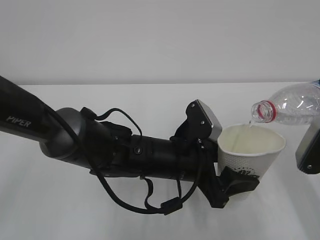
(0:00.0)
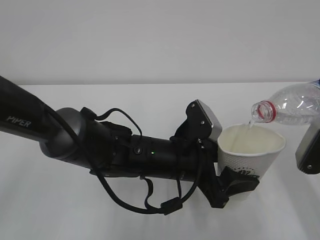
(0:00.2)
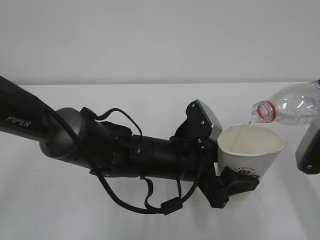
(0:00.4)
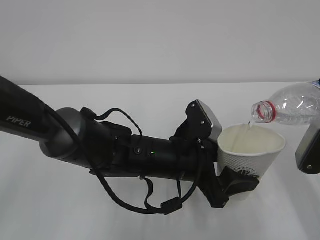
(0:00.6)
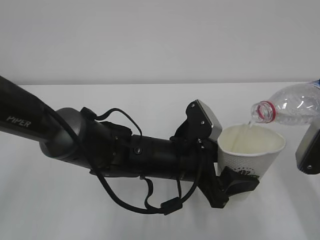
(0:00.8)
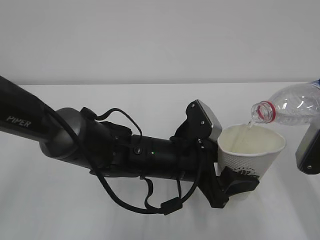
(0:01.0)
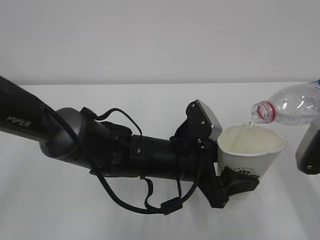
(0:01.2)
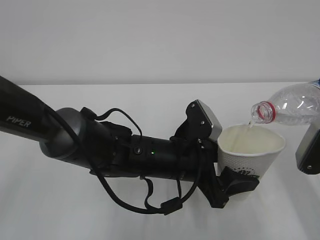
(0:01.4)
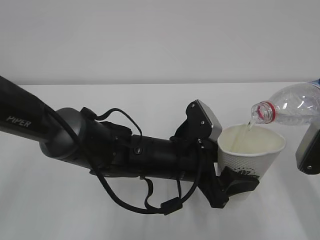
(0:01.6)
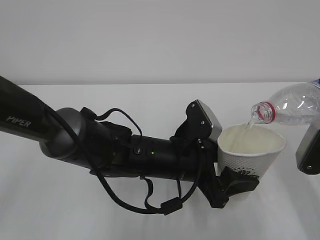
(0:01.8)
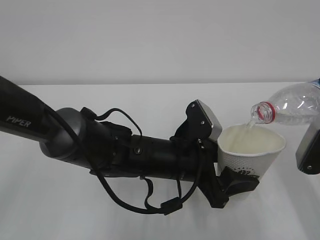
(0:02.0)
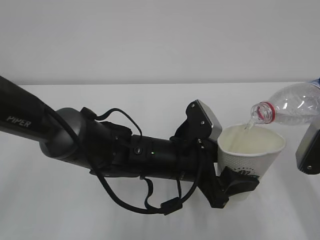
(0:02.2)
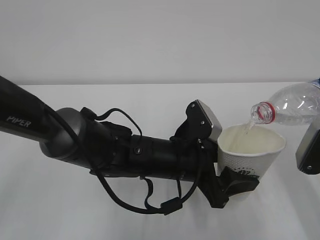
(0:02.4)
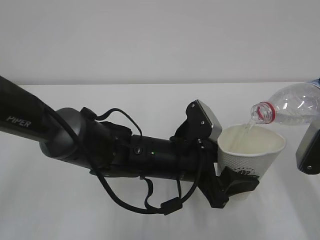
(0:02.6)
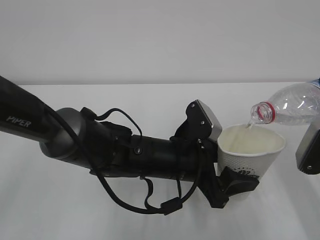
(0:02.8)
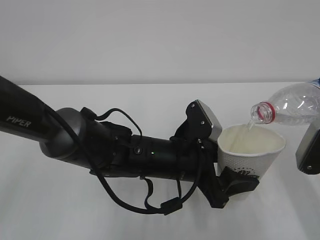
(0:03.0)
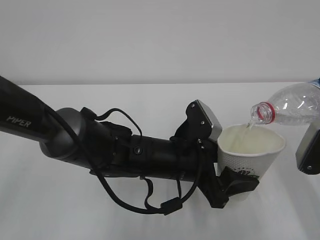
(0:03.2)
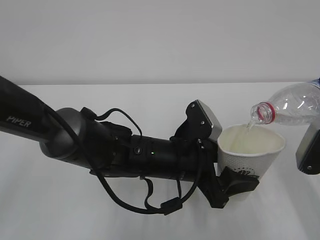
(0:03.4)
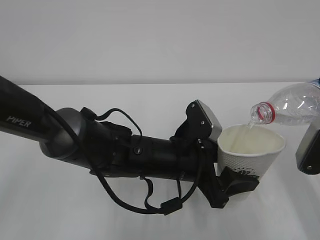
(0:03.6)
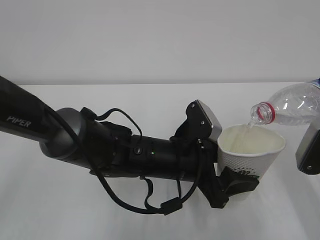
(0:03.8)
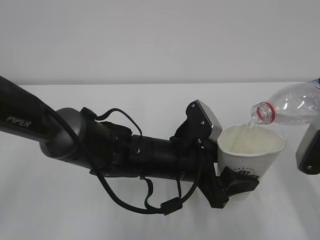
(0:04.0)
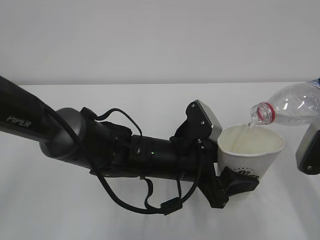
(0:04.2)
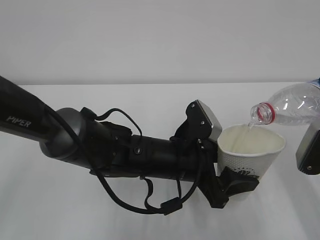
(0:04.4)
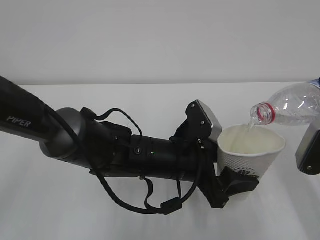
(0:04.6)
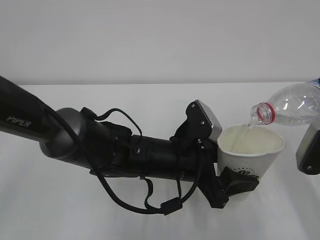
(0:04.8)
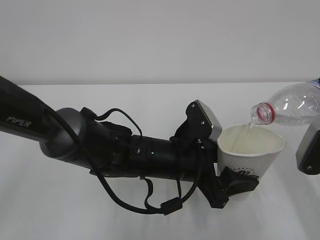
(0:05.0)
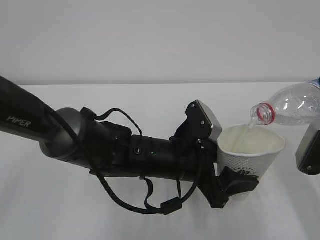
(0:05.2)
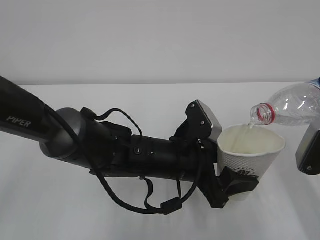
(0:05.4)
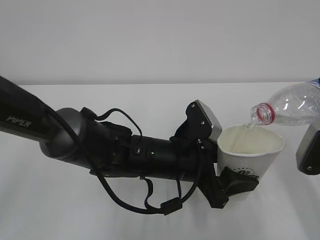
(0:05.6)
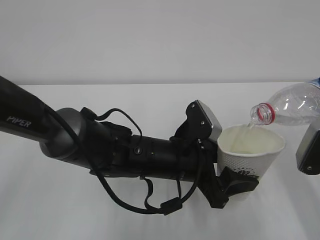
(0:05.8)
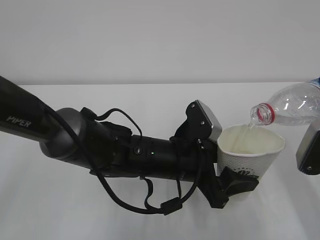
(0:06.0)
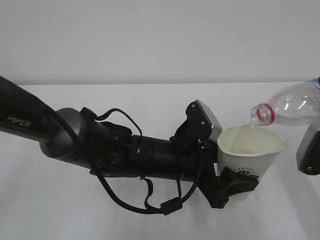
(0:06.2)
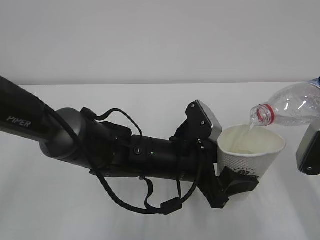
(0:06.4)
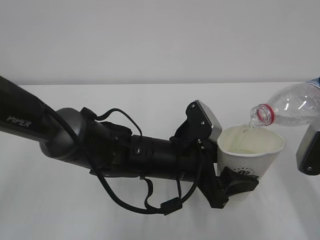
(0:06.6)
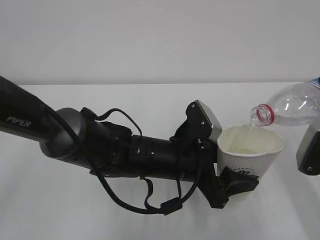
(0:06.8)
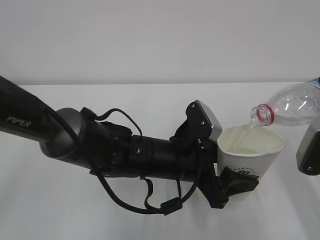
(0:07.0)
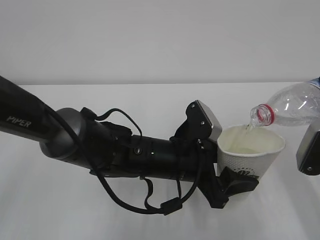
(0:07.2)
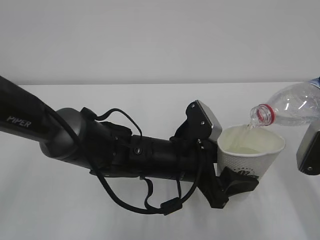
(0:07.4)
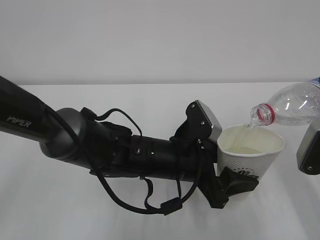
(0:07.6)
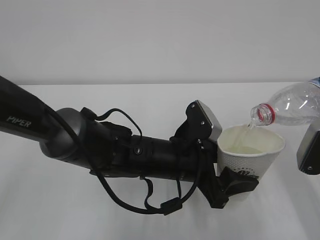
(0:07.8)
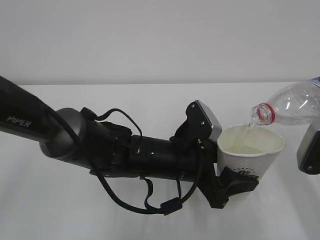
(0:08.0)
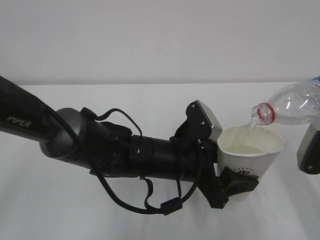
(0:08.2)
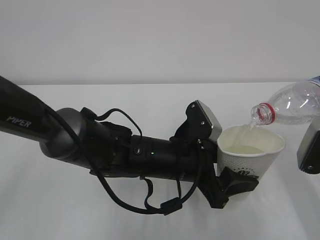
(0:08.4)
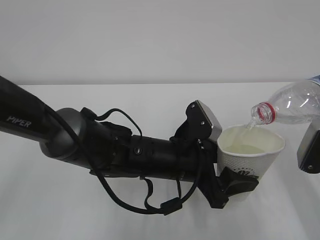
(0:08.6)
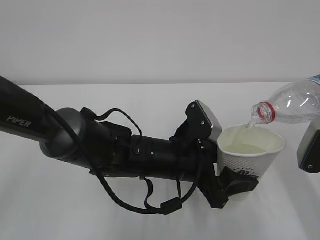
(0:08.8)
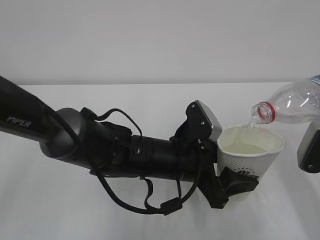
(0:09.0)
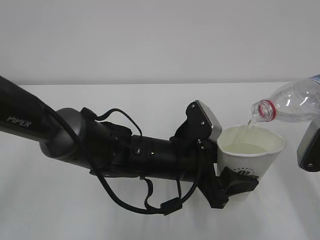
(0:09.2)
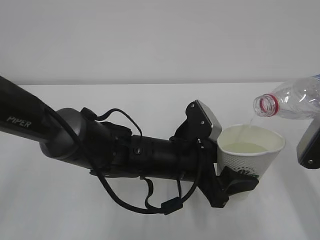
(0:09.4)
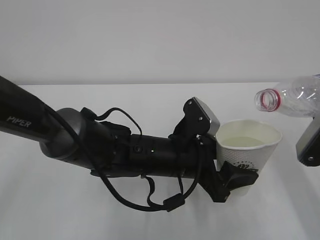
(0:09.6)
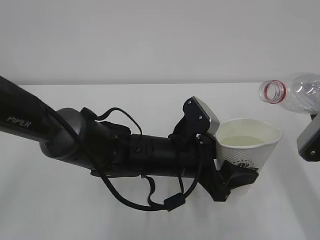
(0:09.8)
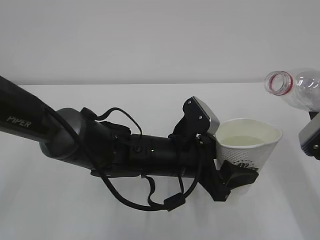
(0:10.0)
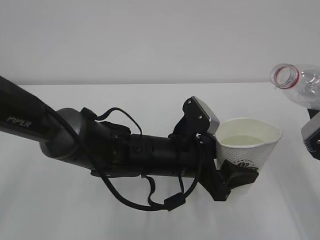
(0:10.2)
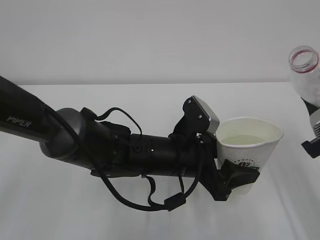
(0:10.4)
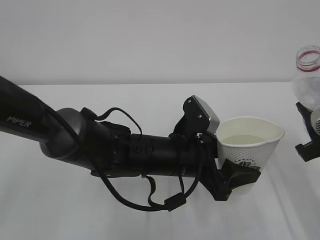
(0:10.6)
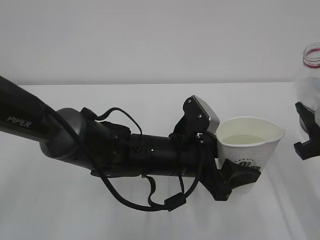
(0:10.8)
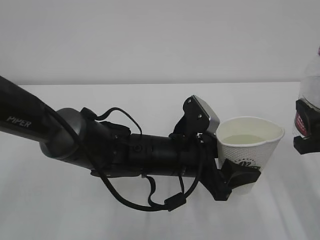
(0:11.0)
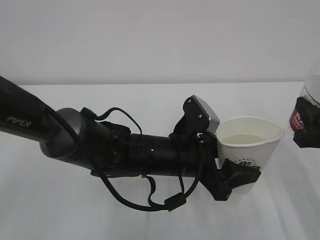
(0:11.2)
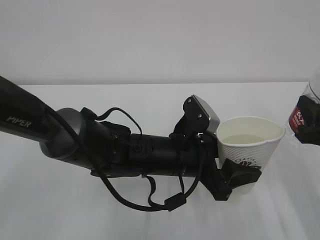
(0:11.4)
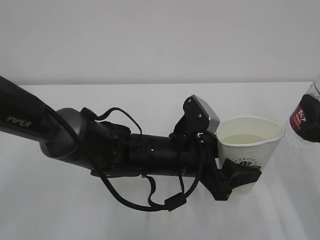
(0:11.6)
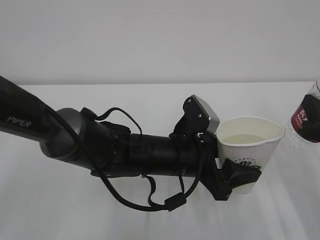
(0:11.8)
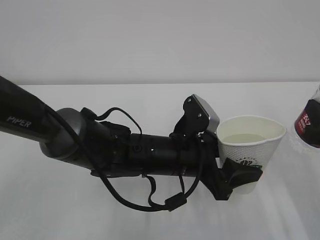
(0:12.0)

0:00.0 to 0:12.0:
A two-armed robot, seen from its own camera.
0:00.0 to 0:07.6: Both grippers stay put.
0:07.6 to 0:09.0: The two grippers keep their place.

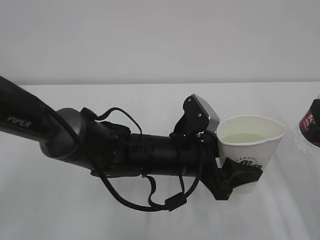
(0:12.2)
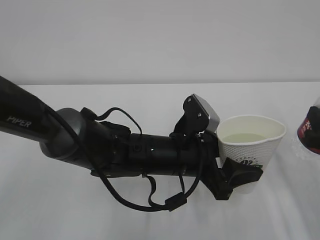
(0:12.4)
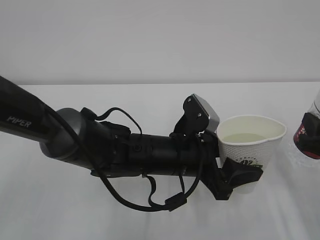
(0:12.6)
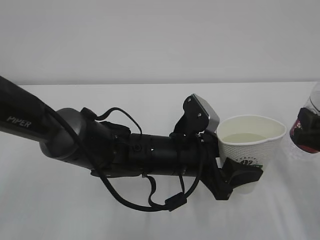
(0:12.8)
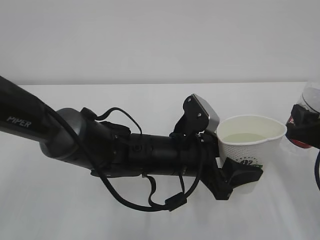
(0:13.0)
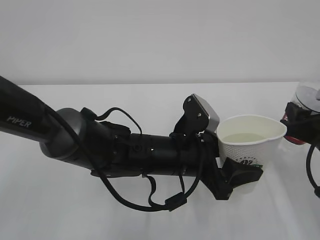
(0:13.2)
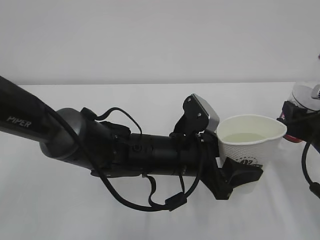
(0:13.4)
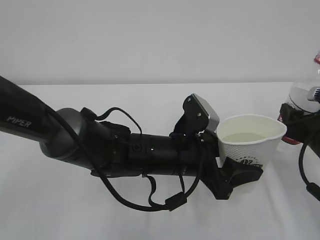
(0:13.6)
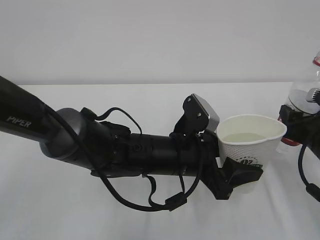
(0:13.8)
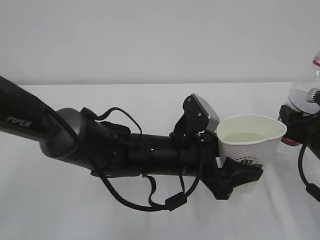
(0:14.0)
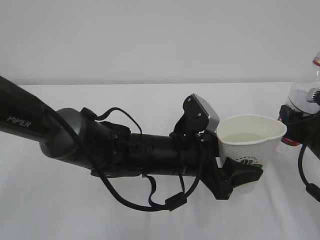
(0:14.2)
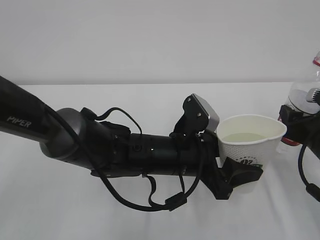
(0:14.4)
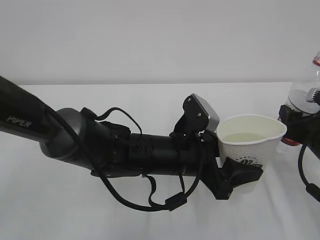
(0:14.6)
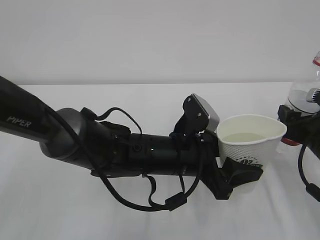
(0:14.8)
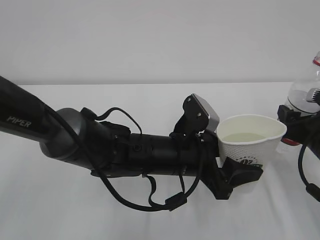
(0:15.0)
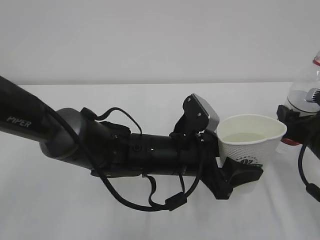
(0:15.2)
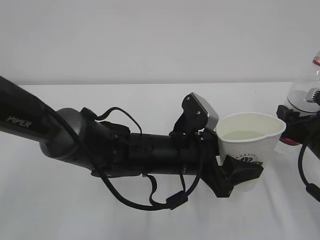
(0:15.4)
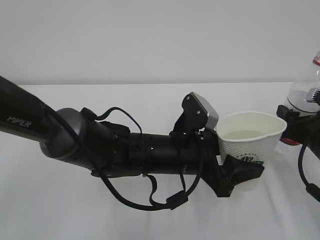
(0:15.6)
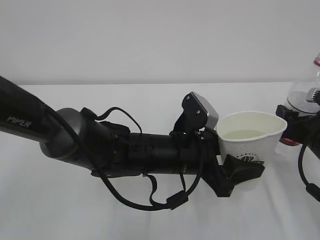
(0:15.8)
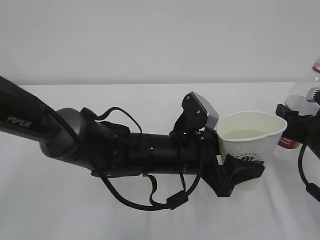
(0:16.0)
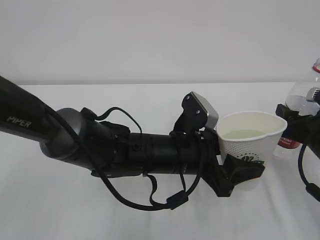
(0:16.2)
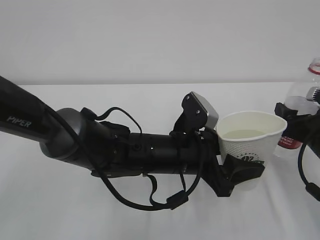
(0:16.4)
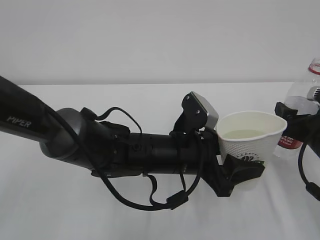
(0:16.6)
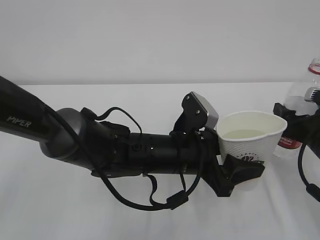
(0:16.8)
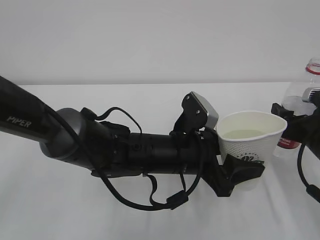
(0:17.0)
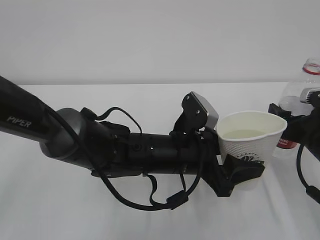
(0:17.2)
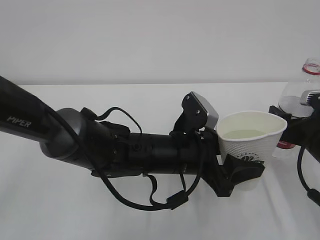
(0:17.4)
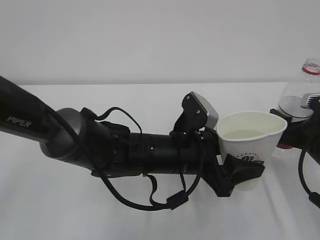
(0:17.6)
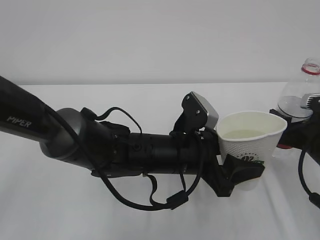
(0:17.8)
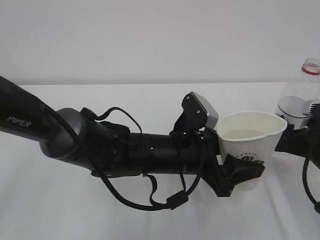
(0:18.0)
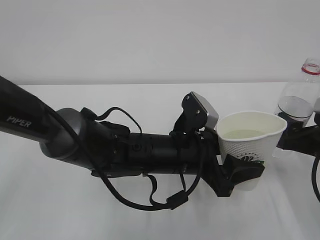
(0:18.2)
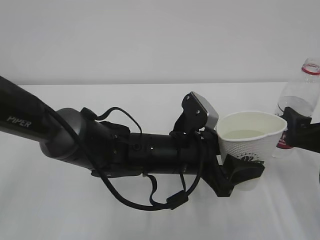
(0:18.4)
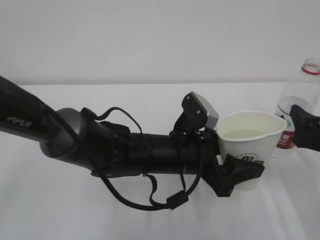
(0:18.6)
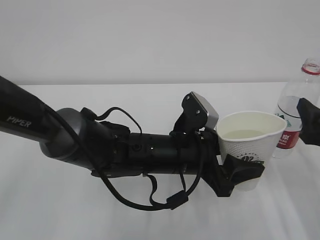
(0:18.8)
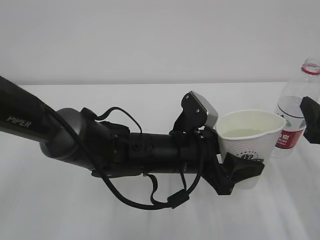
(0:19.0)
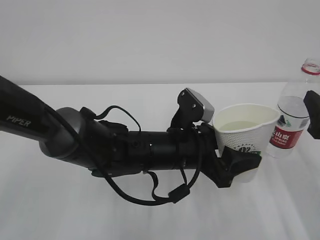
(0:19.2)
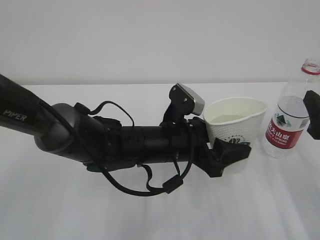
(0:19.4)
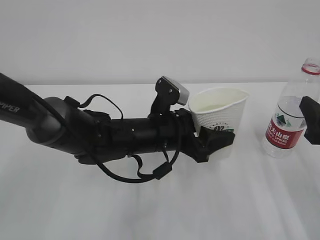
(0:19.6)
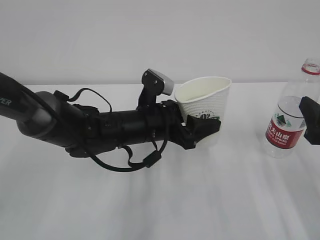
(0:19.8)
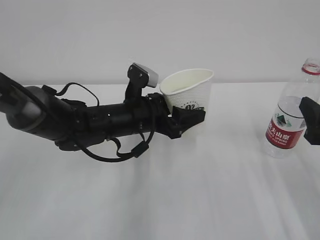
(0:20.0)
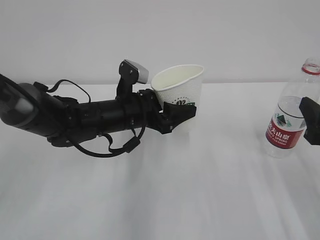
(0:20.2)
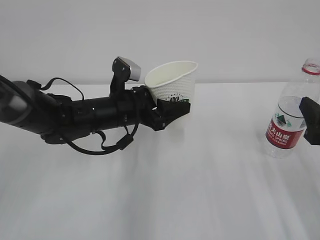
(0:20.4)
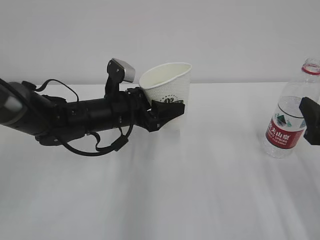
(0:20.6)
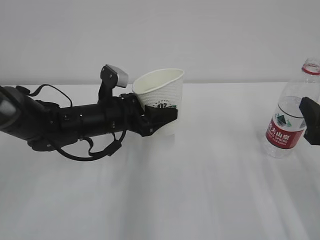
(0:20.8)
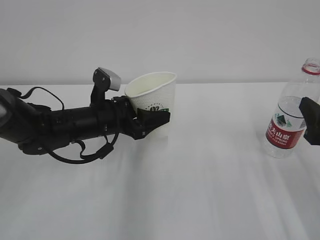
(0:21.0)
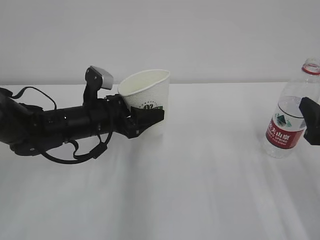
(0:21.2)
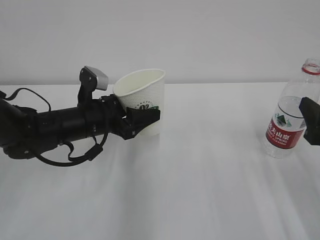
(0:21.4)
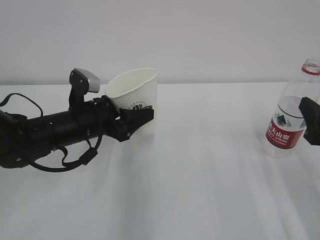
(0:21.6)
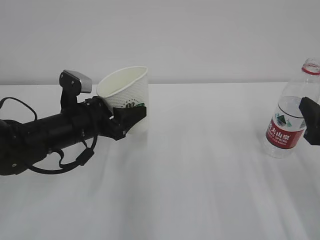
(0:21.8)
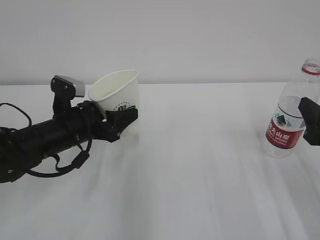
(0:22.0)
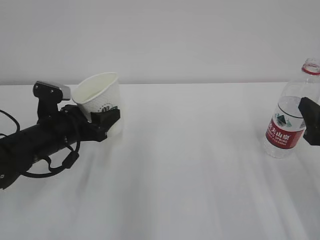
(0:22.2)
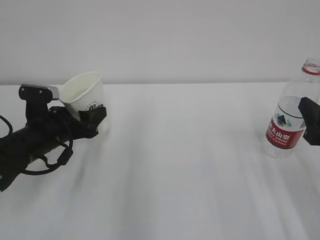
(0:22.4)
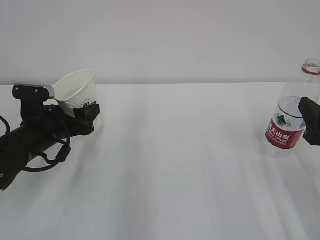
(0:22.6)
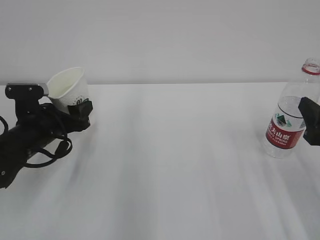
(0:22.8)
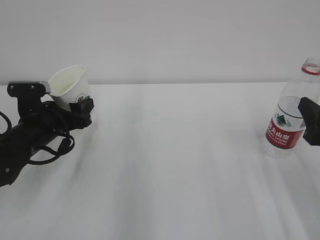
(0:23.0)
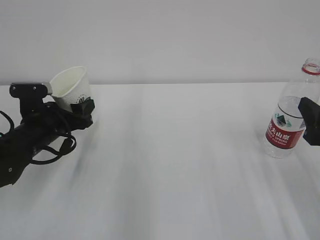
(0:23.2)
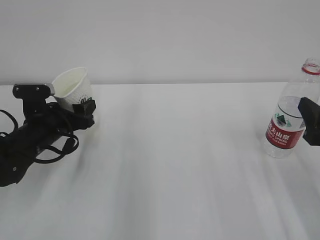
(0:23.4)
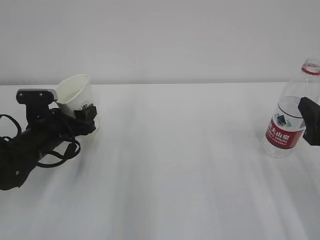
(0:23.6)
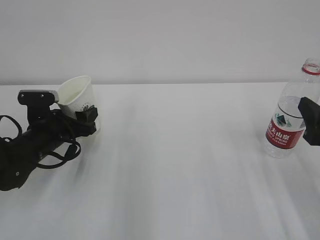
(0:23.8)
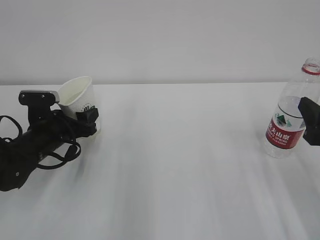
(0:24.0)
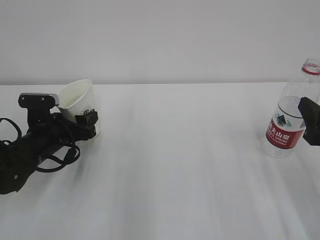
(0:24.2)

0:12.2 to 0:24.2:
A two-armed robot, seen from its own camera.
0:12.2 to 0:13.8: The right gripper shifts some 5 cm forward.
0:15.2 to 0:16.6: The right gripper opens its fingers.
0:16.6 to 0:18.2: There are only small adjustments of the grippers.
0:18.2 to 0:19.8: The right gripper heads upward, covering roughly 5 cm, while the left gripper shifts roughly 10 cm forward and to the left.
0:19.8 to 0:21.2: The left gripper is displaced to the left by roughly 10 cm.
0:21.2 to 0:22.6: The left gripper heads to the left, covering about 10 cm.
0:22.6 to 0:24.2: There are only small adjustments of the grippers.
